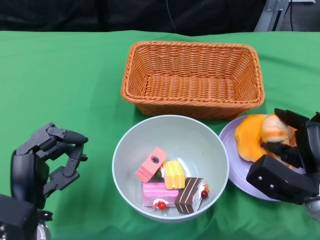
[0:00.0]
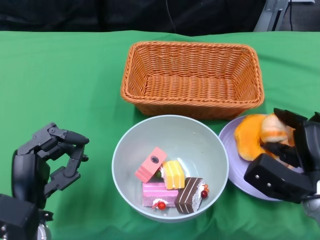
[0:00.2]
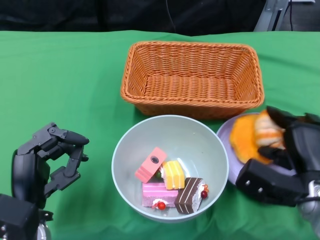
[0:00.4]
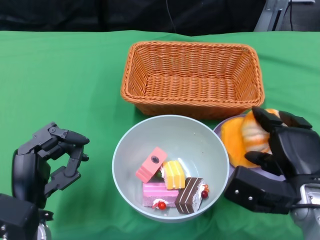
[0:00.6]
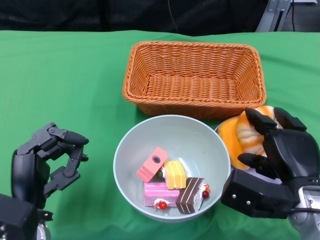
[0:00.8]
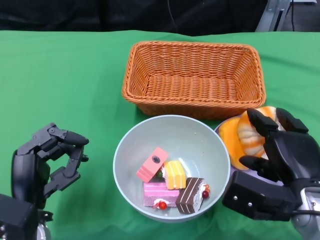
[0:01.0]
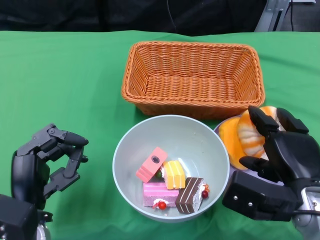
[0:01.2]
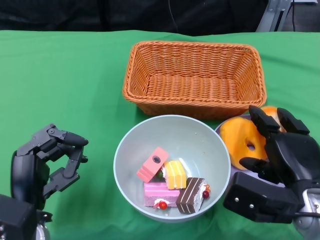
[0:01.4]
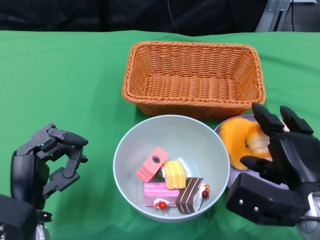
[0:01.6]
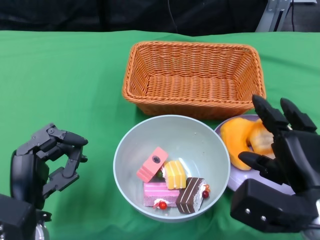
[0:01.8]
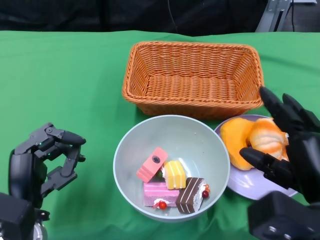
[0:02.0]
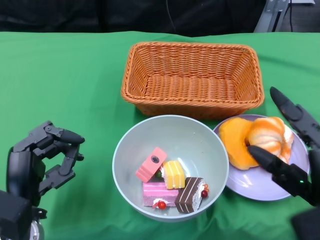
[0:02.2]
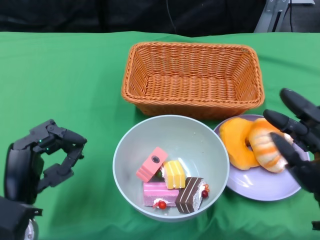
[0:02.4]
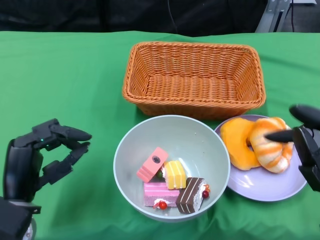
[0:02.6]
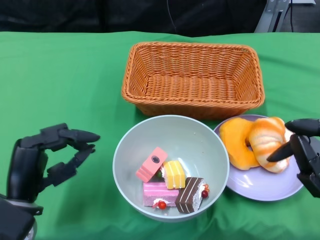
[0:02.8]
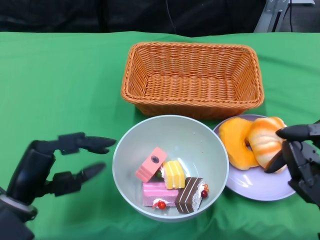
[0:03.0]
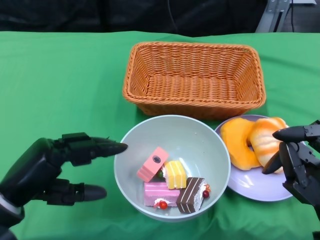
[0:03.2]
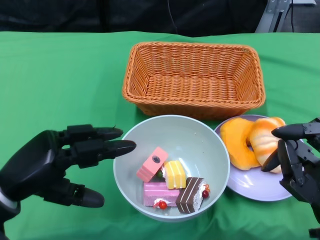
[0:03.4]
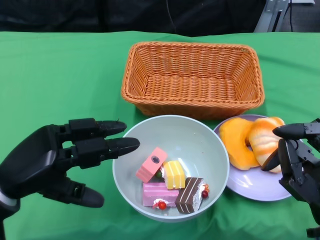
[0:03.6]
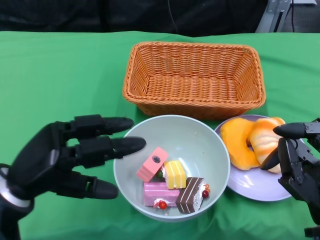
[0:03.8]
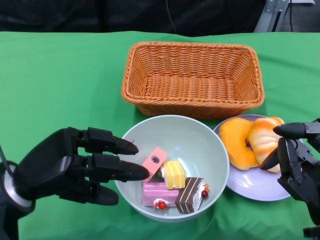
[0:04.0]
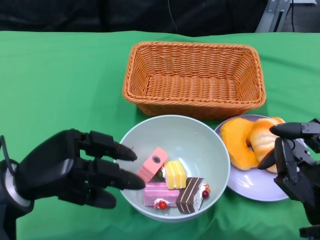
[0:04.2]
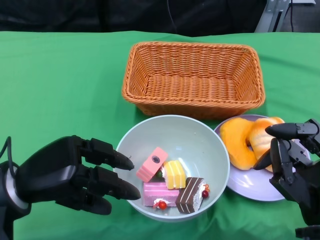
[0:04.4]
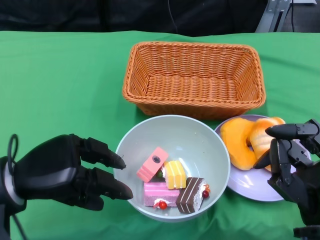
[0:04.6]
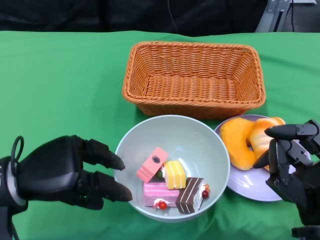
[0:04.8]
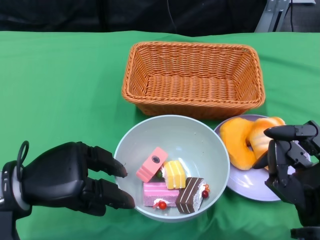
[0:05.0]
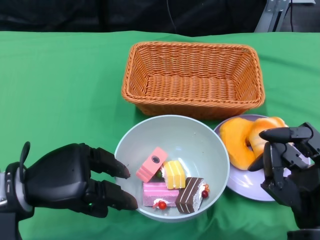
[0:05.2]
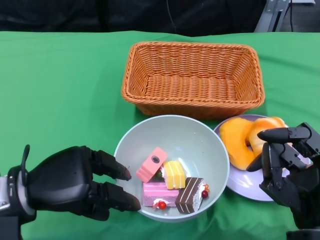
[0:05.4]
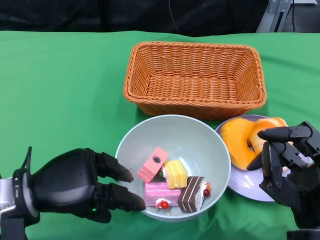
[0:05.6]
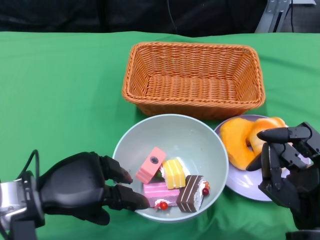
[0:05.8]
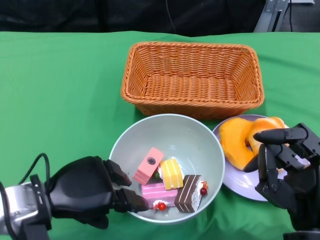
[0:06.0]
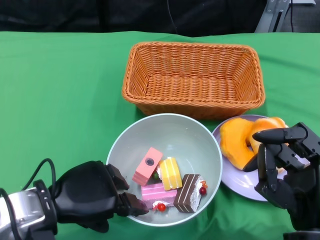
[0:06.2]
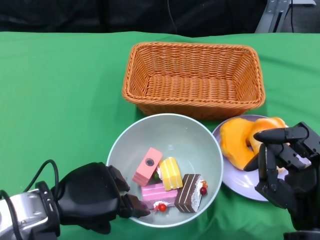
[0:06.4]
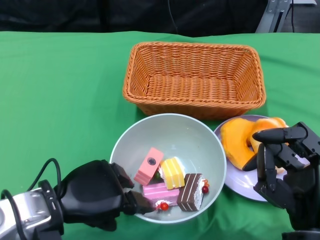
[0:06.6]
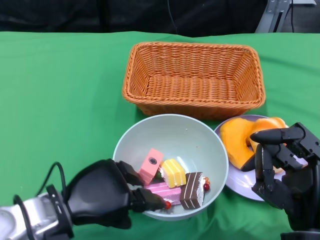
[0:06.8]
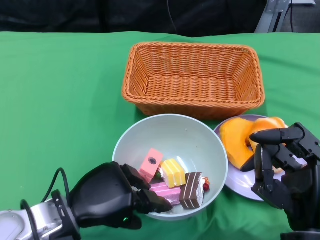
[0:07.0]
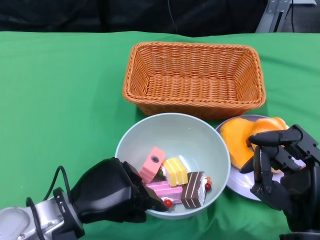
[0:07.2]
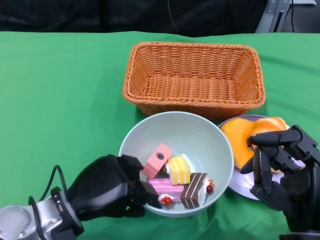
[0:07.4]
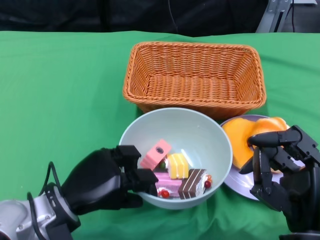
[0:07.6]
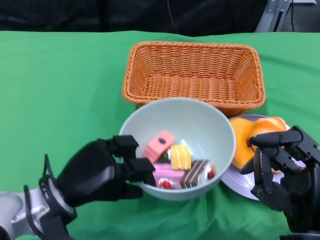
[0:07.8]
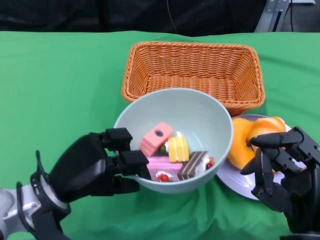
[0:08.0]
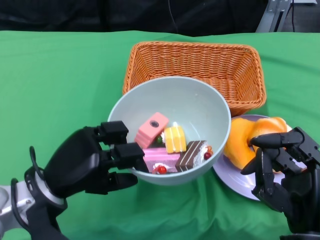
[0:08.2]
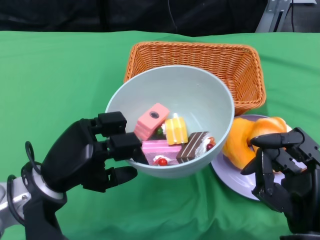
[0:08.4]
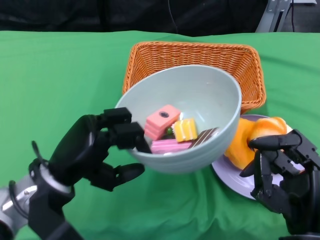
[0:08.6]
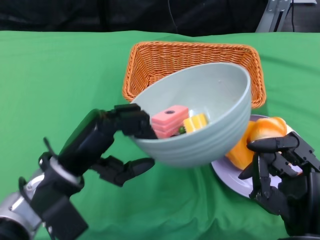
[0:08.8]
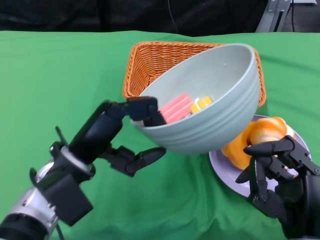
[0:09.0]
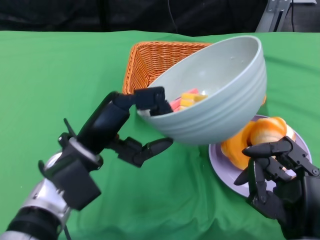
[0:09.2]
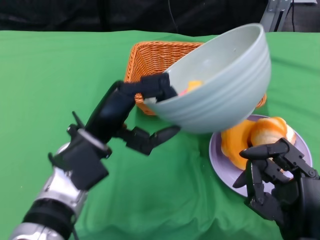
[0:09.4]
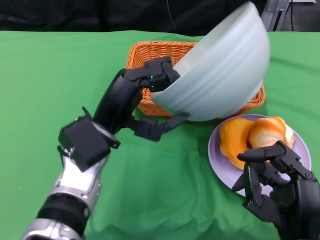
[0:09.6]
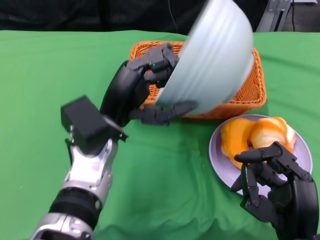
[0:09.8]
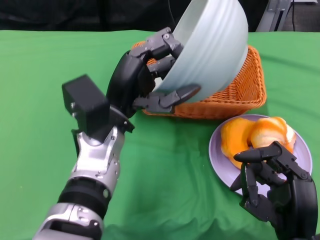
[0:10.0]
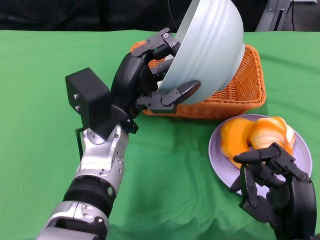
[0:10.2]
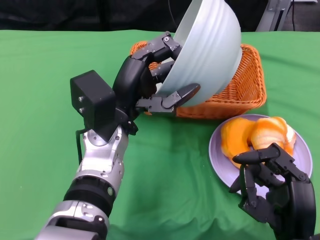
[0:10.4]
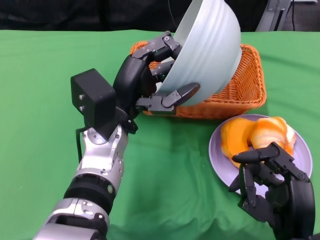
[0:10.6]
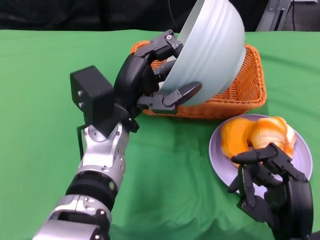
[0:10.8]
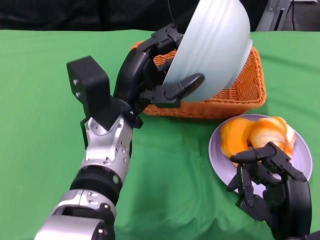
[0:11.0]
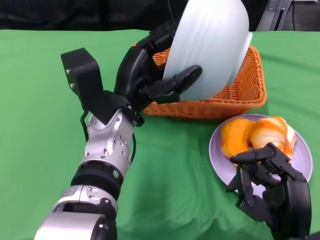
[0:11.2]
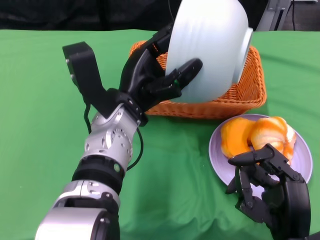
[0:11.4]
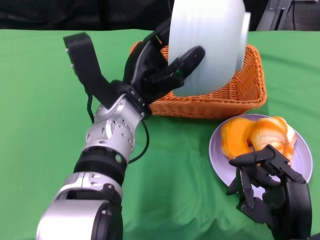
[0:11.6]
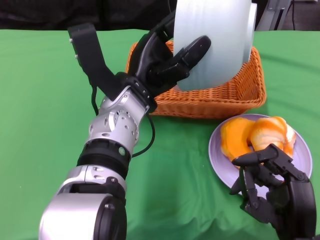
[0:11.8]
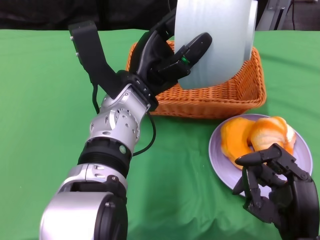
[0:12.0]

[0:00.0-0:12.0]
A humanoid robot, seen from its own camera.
Step, 0:00.0 to 0:02.2: Pick up the bread with the right gripper and place it on the plate.
Step, 0:02.4 to 0:08.0: Grasp the bowl with the left gripper.
0:00.0 to 0:01.6: The right hand shifts approximately 5 cm upward.
0:01.6 to 0:03.0: The right hand travels backward by approximately 5 cm.
0:07.6 to 0:09.0: The left hand heads upward, covering about 5 cm.
0:09.0 to 0:10.4: The left hand travels to the right by some 5 cm.

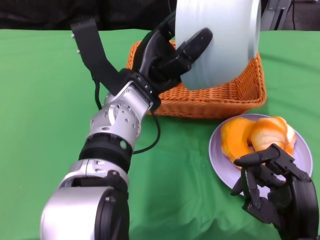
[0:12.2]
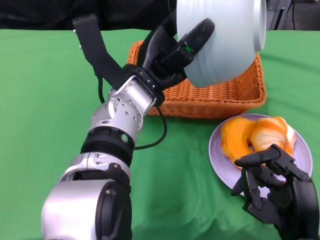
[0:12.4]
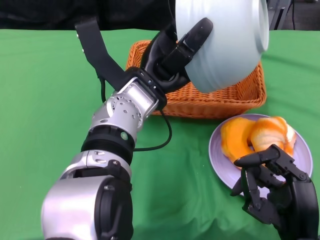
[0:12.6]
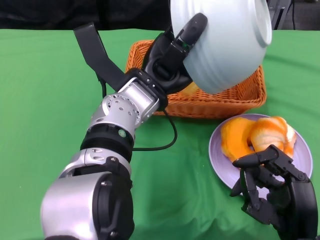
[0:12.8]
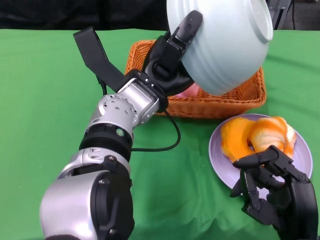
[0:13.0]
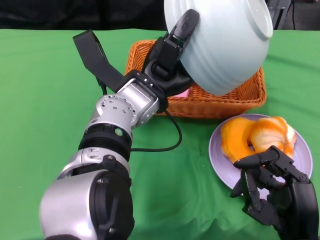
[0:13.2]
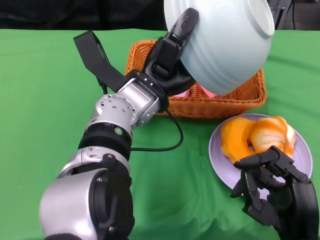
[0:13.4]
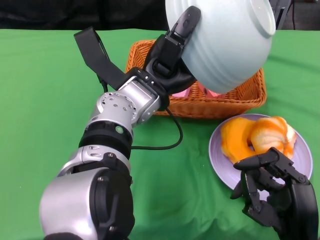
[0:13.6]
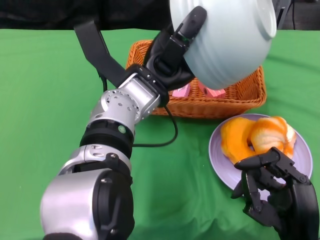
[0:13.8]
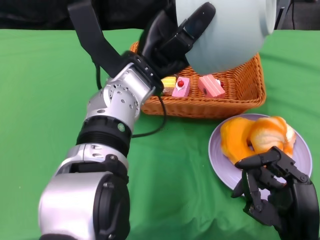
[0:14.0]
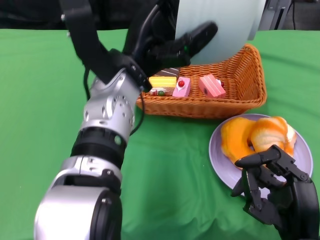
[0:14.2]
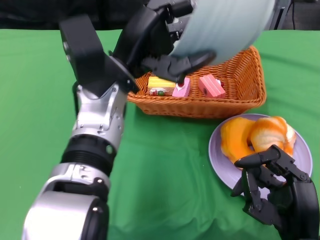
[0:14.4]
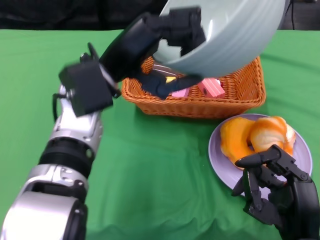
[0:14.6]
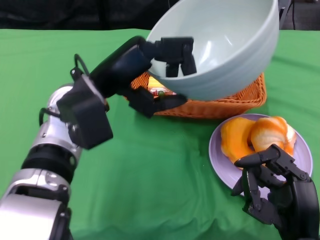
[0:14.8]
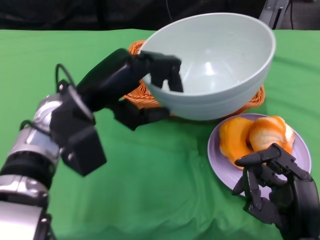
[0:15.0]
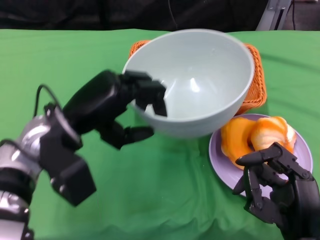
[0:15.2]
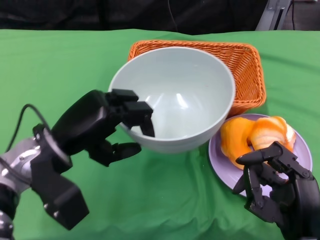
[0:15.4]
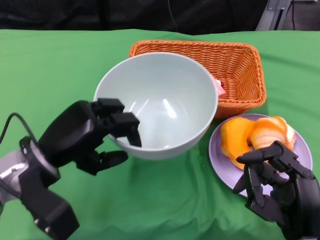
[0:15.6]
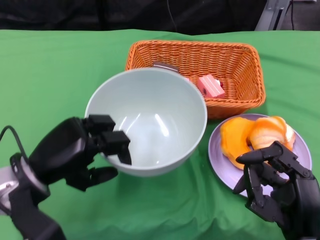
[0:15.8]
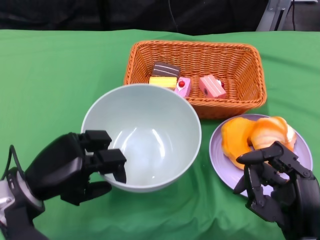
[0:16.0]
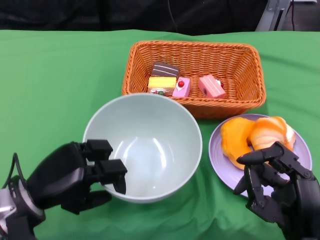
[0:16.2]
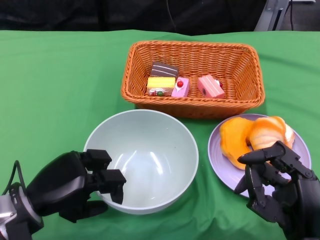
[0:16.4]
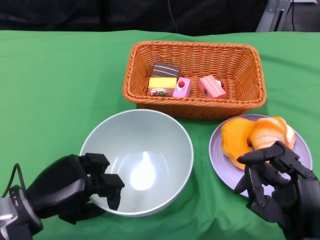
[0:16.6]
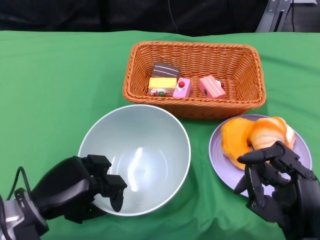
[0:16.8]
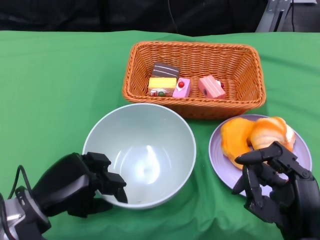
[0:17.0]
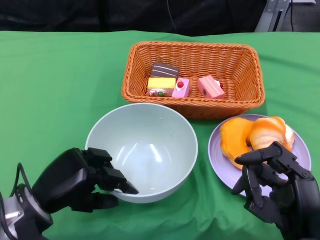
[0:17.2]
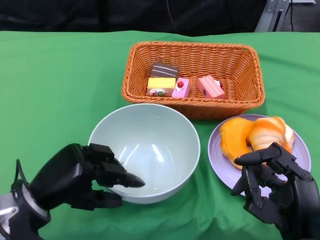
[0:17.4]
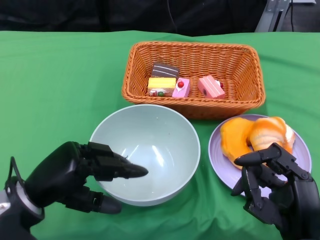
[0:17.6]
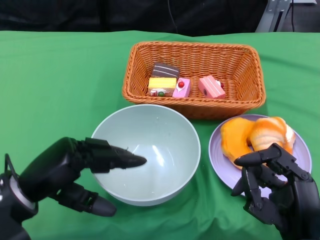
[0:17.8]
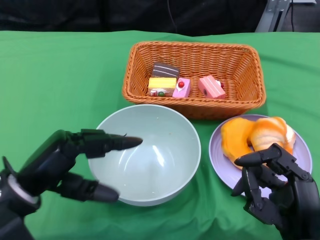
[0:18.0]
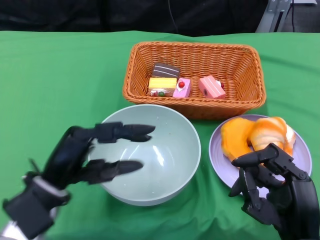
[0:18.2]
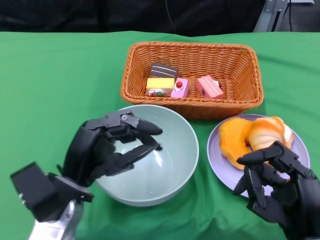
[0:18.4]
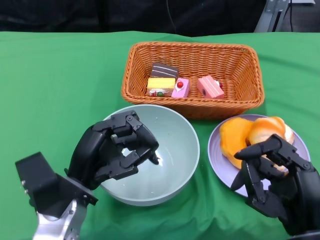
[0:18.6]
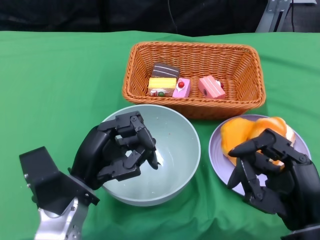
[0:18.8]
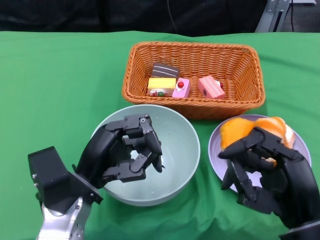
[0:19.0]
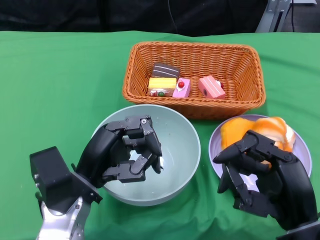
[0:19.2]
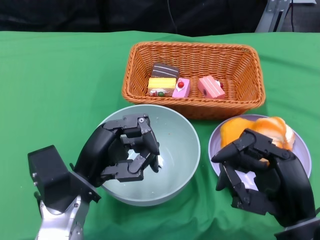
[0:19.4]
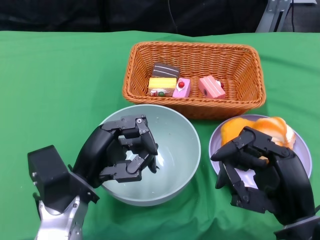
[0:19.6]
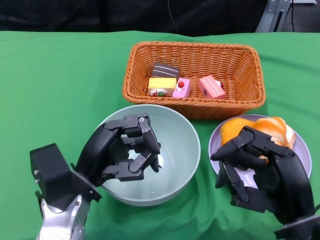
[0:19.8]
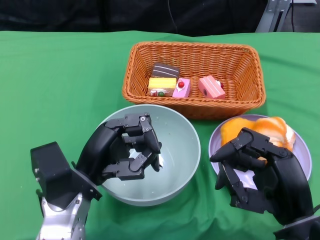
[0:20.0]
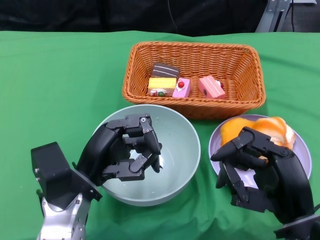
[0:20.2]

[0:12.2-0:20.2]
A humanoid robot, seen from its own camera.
Step, 0:14.2 to 0:17.8: Place the bowl on the table with the left gripper.
0:13.8 to 0:15.4: The left hand heads to the left, covering about 15 cm.
0:15.4 to 0:17.0: The left hand is displaced downward by about 10 cm.
0:17.0 to 0:18.6: The left hand shifts roughly 5 cm to the right.
0:18.6 to 0:20.2: The hands make only small movements.

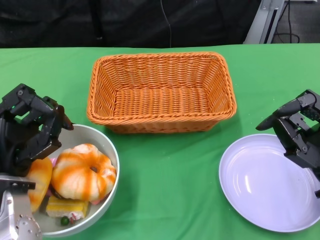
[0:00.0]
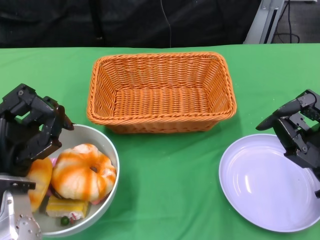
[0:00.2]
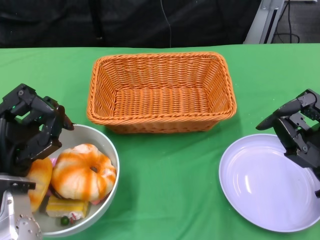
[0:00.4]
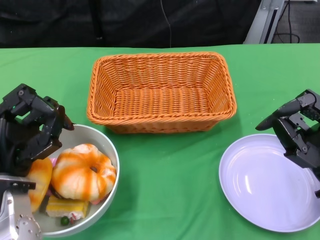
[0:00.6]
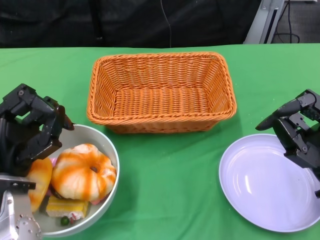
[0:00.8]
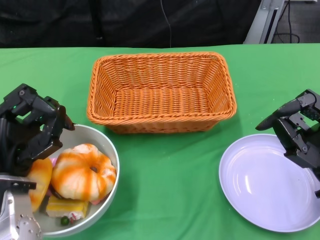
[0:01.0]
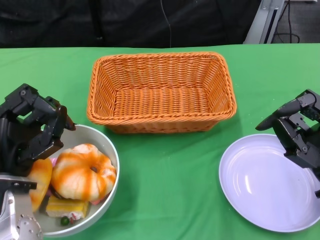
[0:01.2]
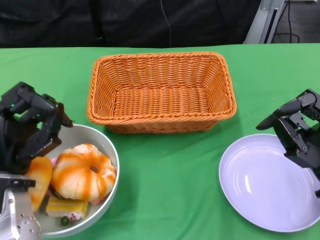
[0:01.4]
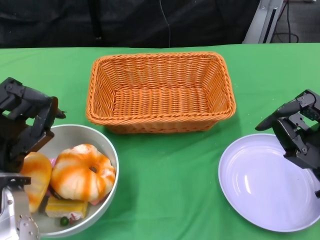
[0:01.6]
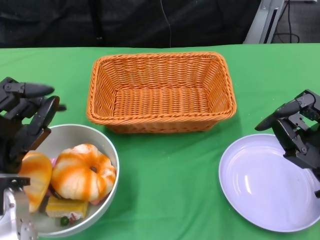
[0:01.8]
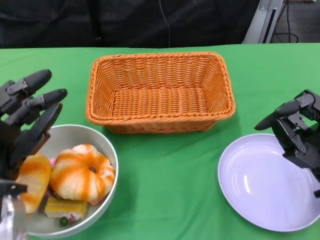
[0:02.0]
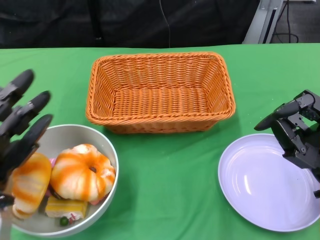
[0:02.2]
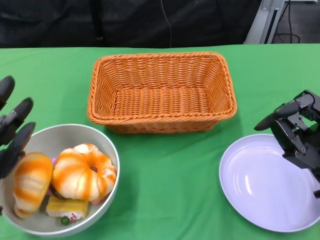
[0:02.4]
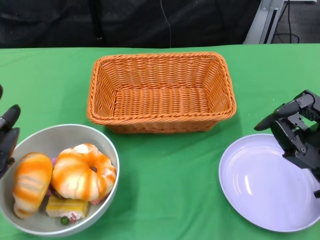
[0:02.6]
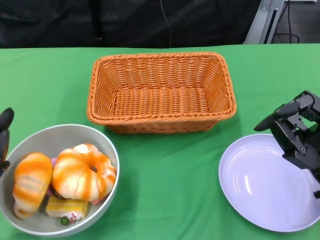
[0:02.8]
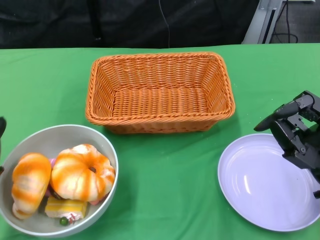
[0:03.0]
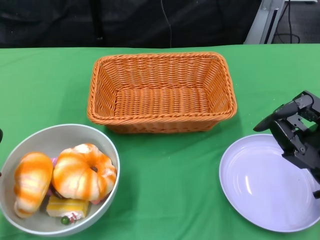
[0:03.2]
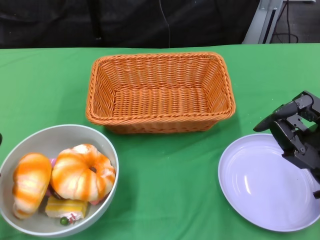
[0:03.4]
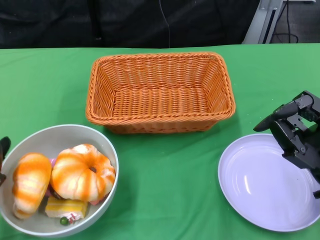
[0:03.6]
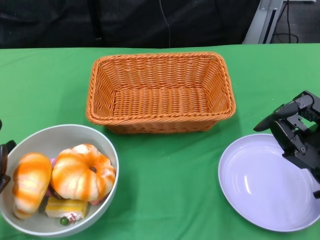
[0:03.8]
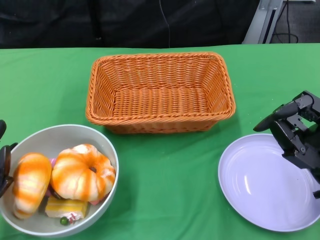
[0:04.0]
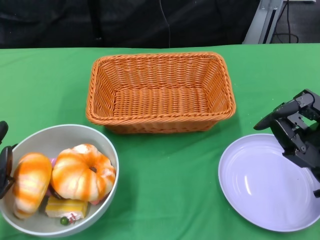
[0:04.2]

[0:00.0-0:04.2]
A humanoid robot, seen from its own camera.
0:01.4 to 0:02.8: The left hand is displaced backward by approximately 5 cm.
